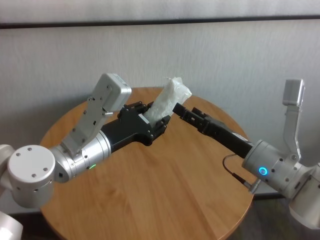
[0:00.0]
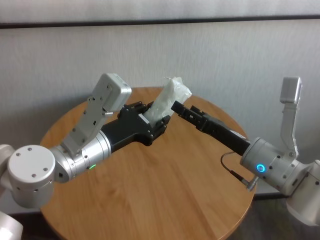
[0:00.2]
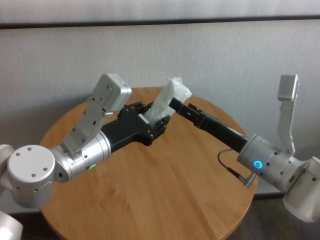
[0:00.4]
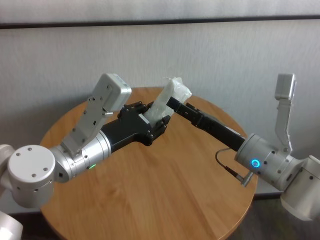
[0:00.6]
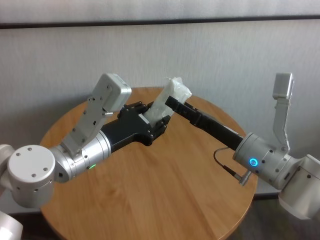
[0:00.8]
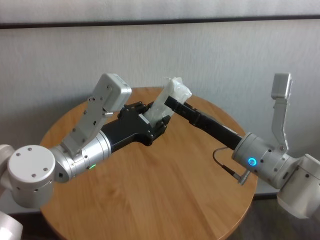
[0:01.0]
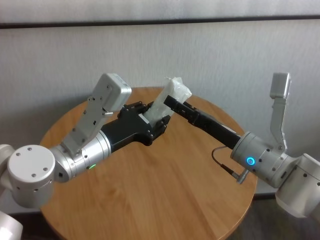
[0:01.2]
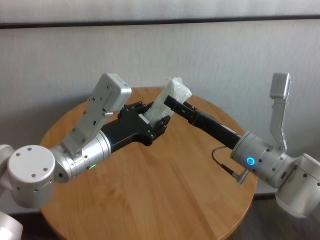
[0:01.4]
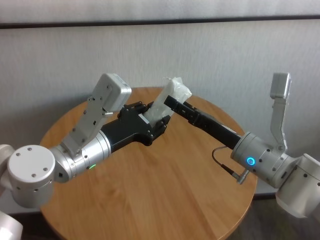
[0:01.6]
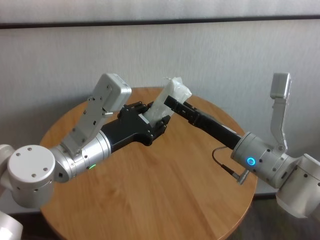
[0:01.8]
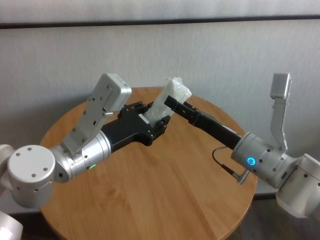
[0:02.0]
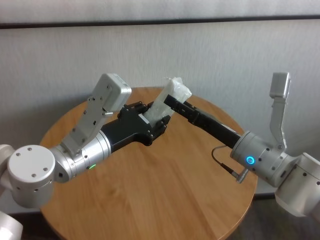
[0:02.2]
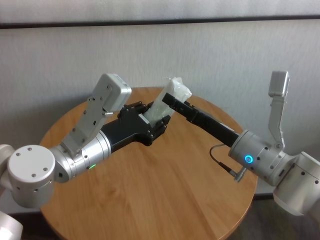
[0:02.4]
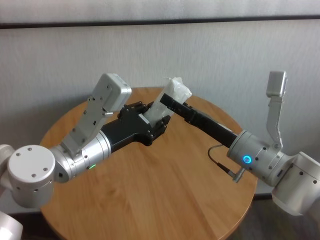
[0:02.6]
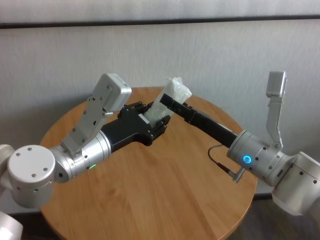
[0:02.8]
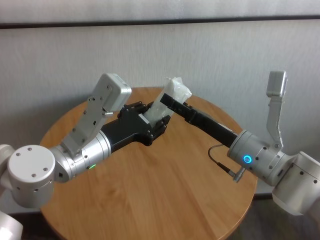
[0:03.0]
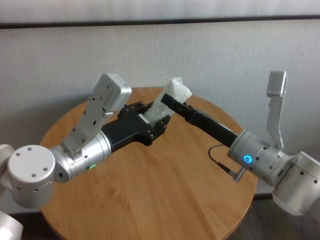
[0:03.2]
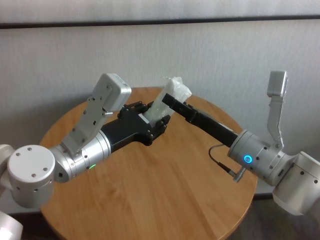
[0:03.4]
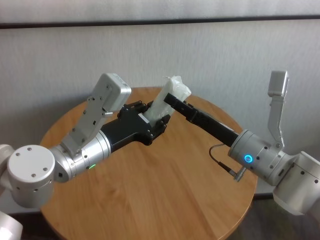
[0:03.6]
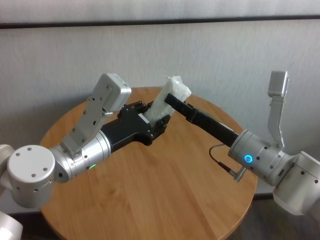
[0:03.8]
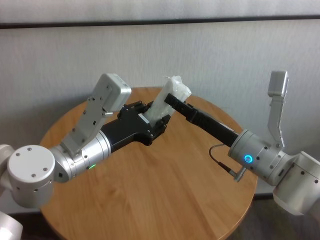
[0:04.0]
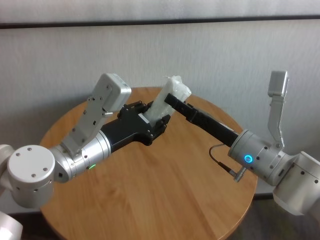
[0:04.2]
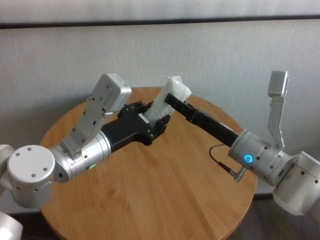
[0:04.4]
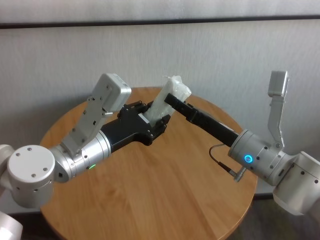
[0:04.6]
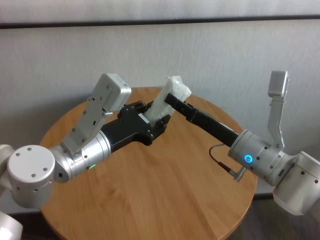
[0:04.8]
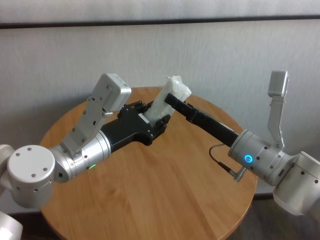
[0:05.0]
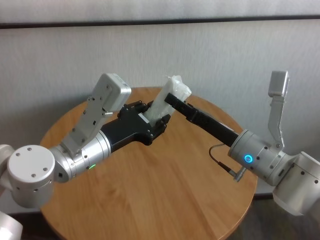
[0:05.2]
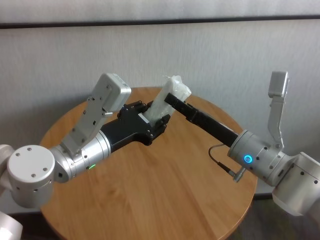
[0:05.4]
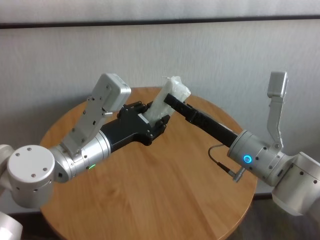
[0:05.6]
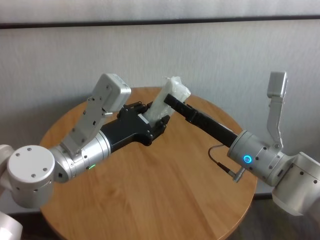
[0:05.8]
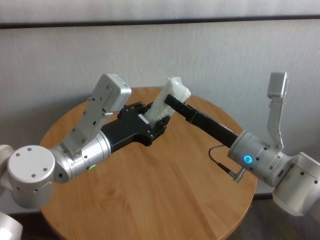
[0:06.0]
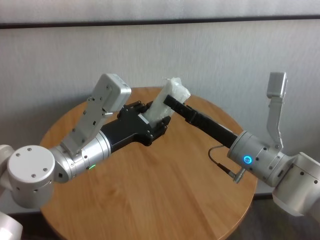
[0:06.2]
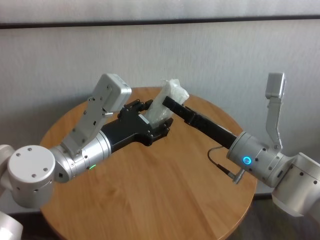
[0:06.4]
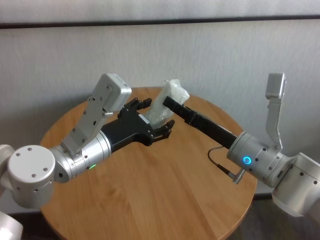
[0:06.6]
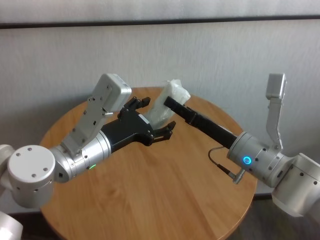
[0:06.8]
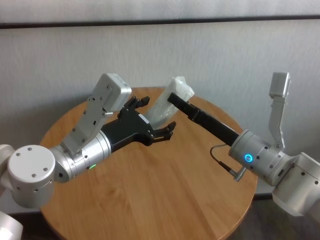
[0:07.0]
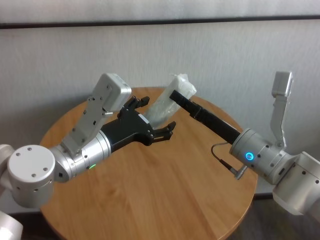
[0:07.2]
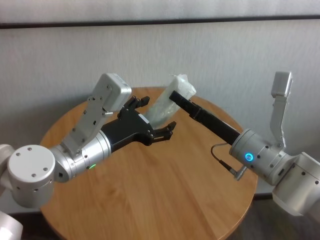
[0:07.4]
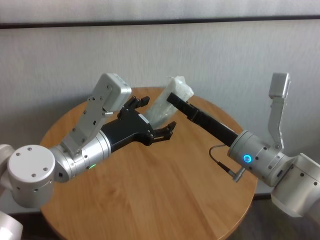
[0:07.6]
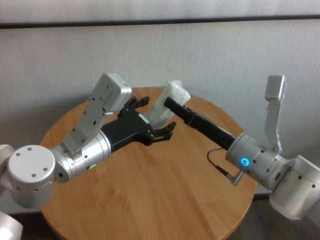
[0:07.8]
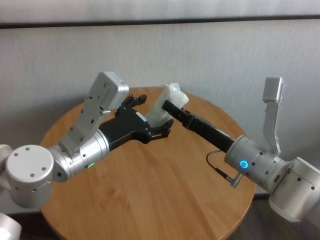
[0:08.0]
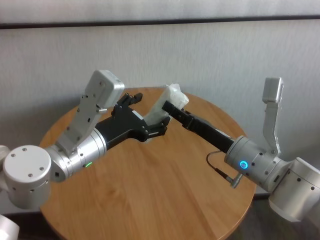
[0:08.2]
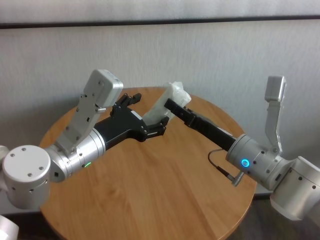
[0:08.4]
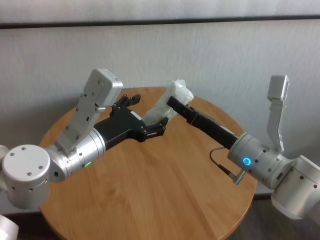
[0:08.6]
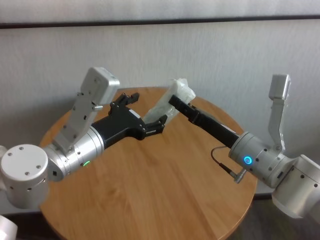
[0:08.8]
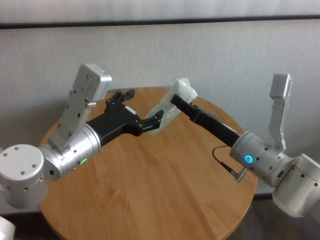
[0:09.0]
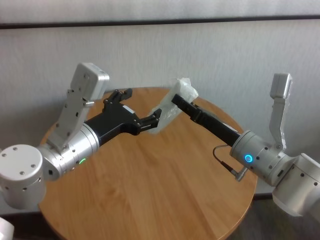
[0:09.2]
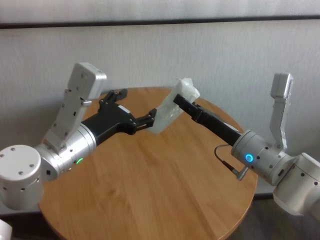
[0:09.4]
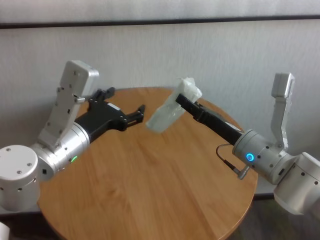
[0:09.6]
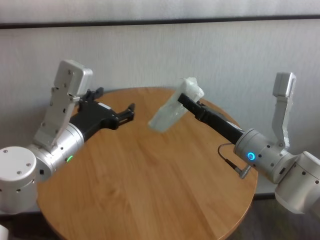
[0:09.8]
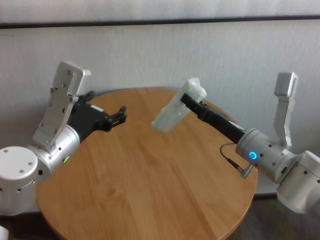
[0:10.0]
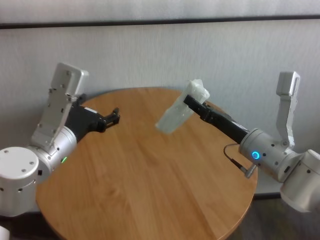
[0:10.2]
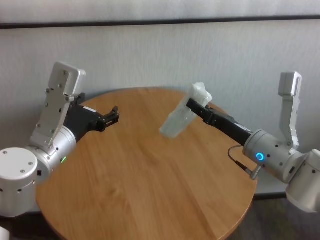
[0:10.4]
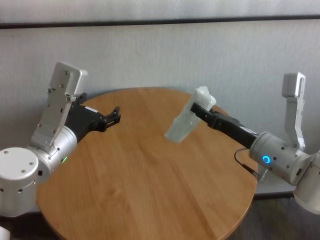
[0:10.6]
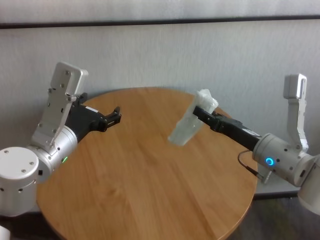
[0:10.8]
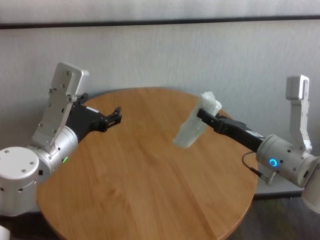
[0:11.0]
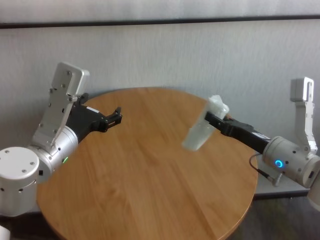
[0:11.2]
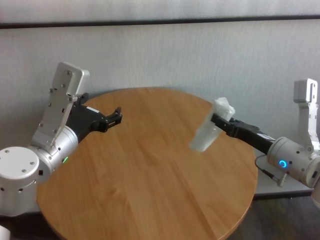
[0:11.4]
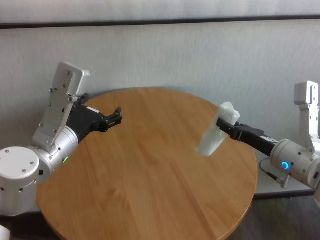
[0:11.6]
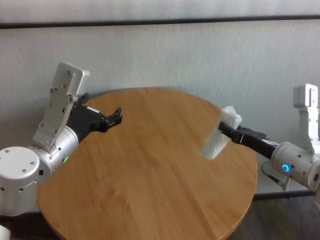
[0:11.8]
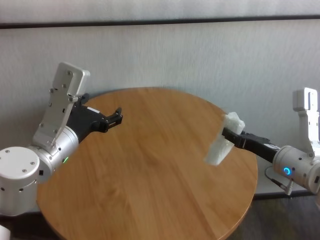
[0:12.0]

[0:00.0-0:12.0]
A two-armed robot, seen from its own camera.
Task of the whole recording: One hand took the sandbag from the other hand and placed it on the table.
Step, 0:00.0 to 0:08.6: Pass the paper ball to the right gripper.

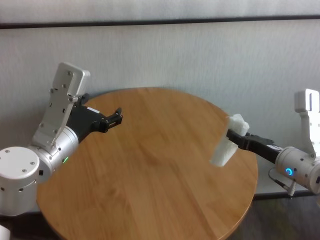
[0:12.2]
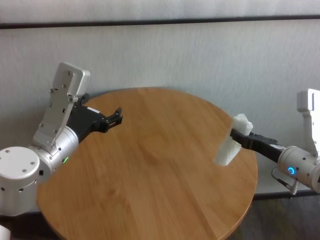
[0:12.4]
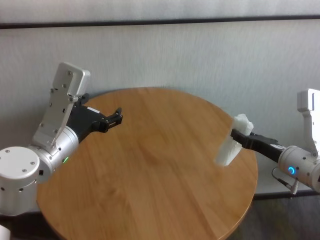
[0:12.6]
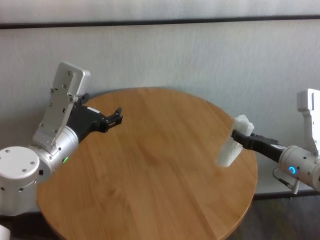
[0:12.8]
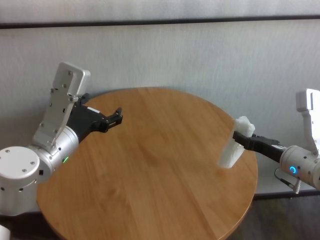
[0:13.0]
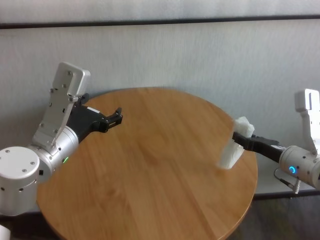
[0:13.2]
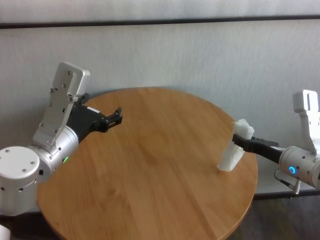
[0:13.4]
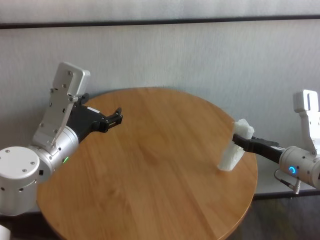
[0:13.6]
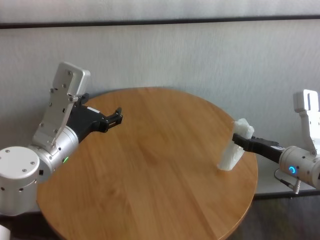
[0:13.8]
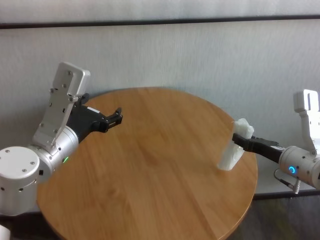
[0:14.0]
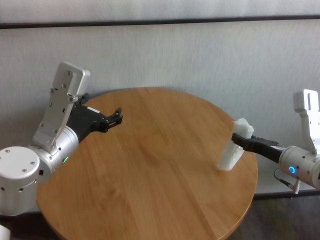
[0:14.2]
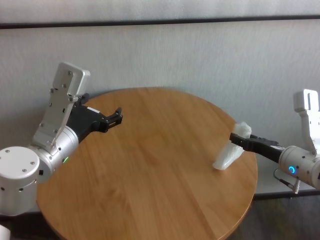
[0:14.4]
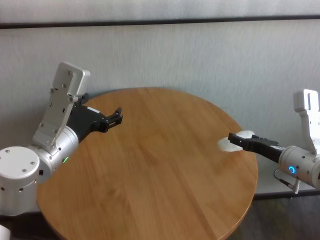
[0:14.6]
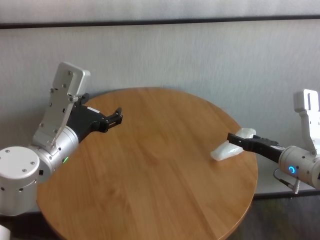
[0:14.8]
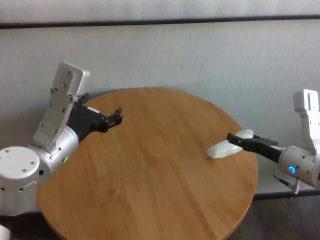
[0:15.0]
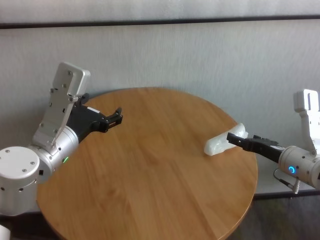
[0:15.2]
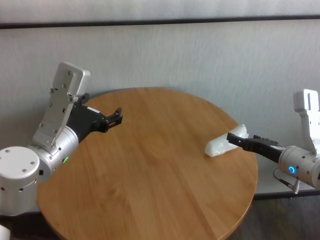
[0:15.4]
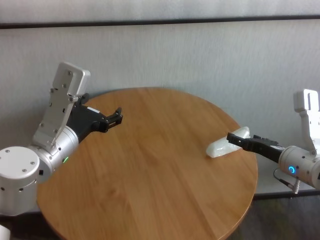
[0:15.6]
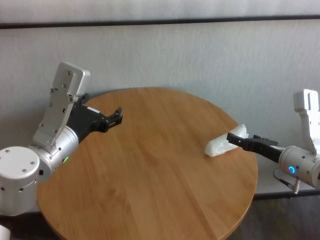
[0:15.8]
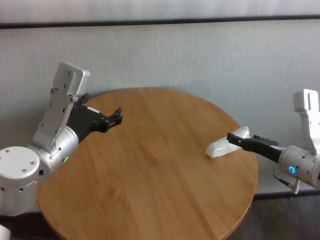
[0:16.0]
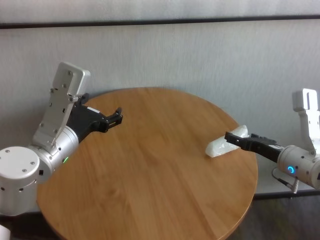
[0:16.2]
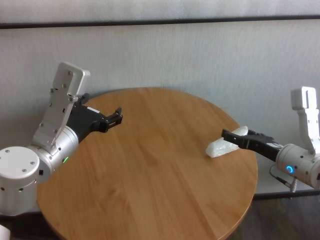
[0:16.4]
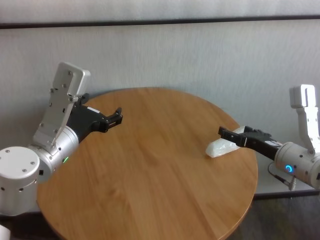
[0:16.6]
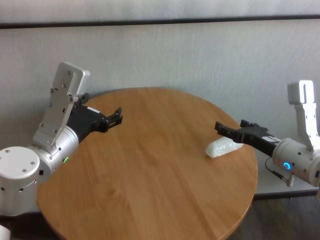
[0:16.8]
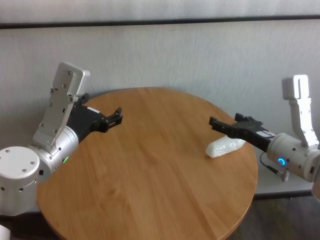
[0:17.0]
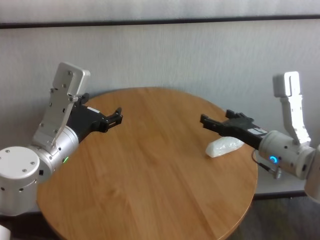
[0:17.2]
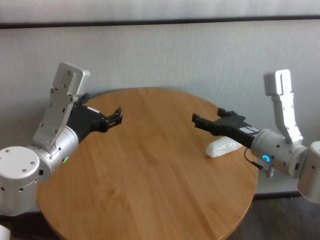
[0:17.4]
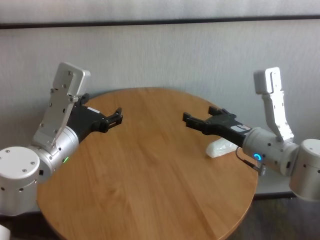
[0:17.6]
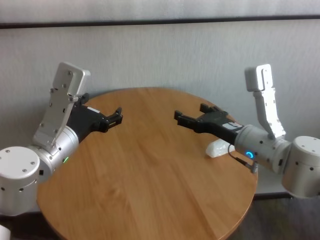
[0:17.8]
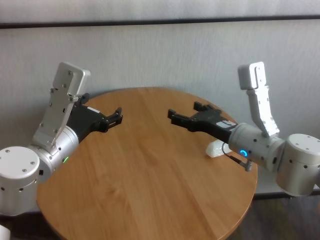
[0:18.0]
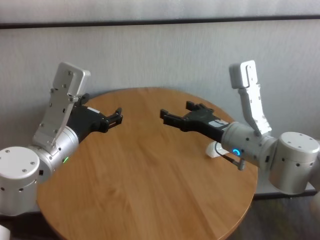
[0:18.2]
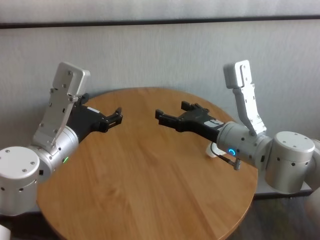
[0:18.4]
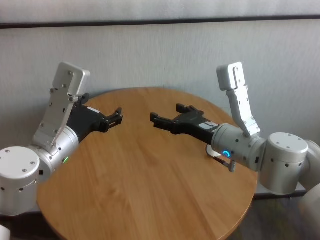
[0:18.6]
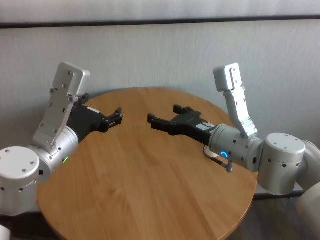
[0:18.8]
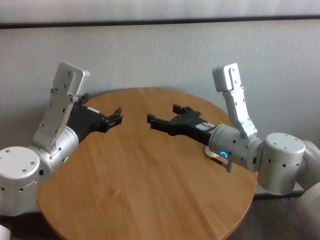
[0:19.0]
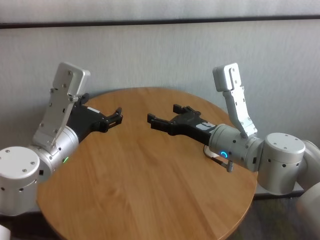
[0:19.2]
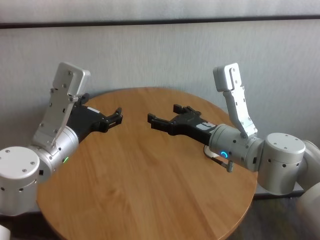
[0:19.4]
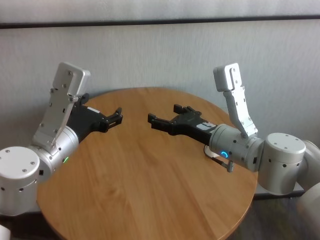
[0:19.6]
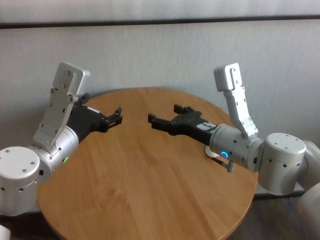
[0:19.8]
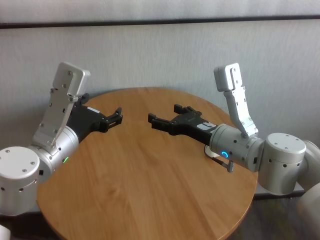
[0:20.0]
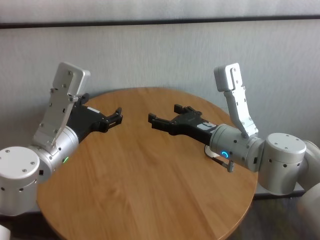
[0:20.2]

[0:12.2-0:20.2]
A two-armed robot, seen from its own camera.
Task of the whole recording: One hand took the sandbag from the other hand and placed it on the table.
Step, 0:12.2 to 0:14.6: Place the paper ball on the table with right gripper.

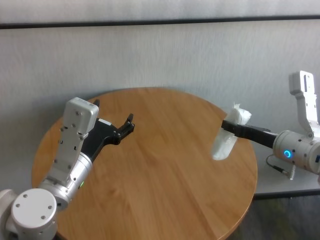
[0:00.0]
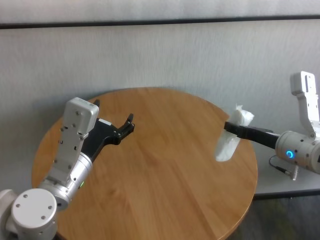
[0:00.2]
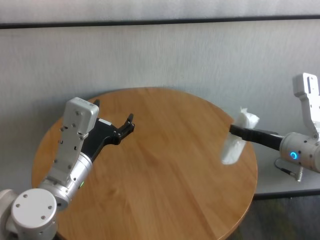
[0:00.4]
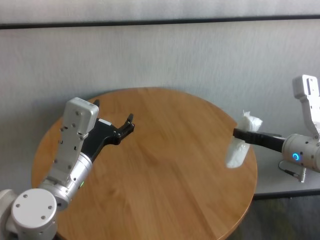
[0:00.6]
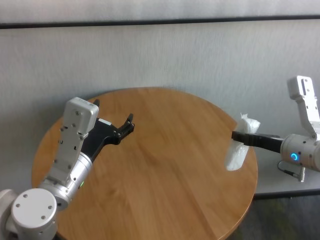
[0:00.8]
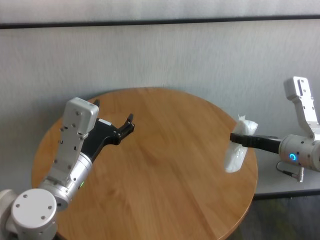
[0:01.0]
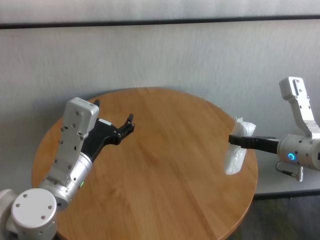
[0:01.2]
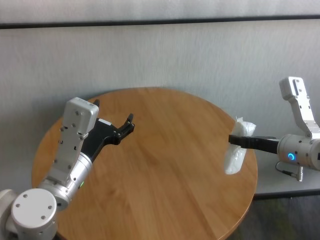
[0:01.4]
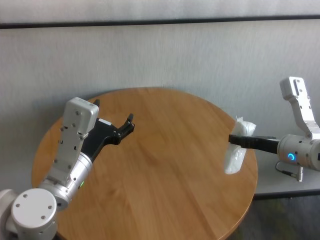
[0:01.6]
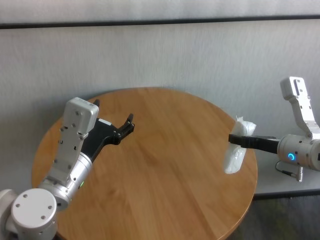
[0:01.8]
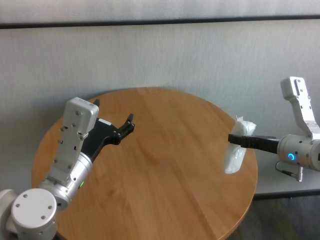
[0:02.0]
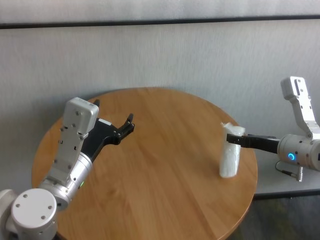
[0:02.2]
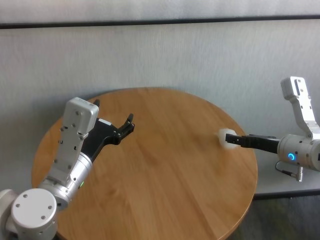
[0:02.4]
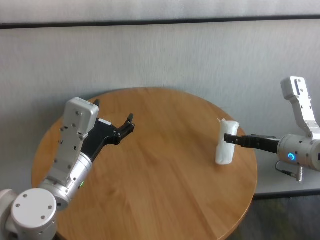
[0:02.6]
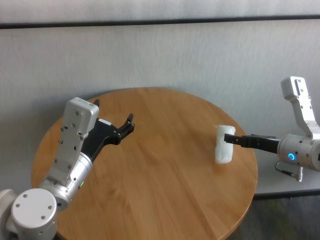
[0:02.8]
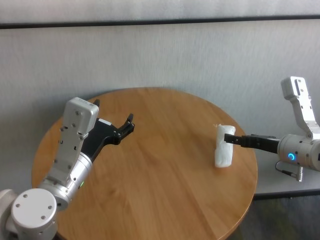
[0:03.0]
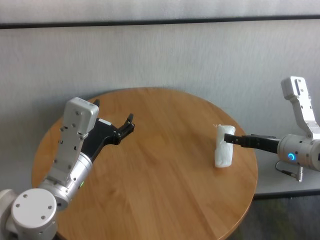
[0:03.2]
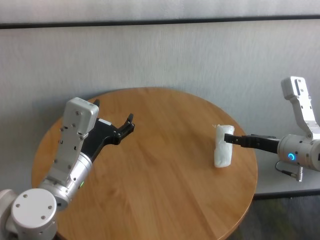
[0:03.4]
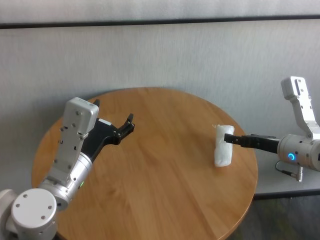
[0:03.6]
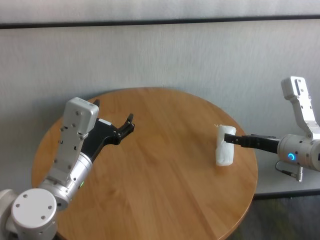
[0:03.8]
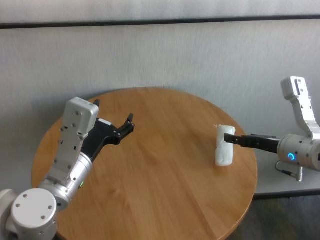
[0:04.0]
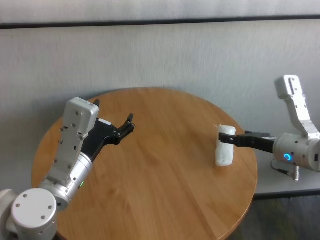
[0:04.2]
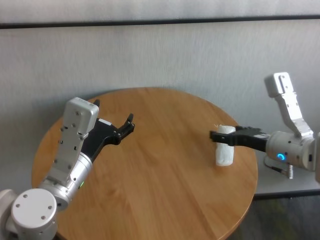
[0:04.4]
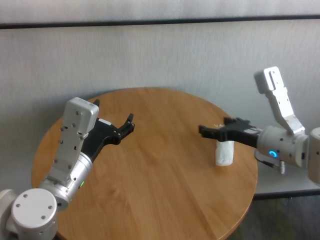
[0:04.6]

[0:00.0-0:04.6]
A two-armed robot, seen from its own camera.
Task of the whole recording: One hand took the sandbag from the other hand and placed it on the table.
Step, 0:00.0 to 0:02.4: Place the paper ball on the table with right gripper.
